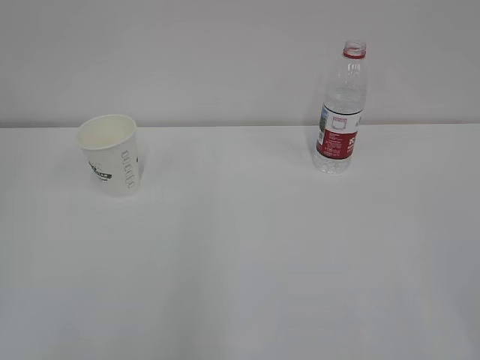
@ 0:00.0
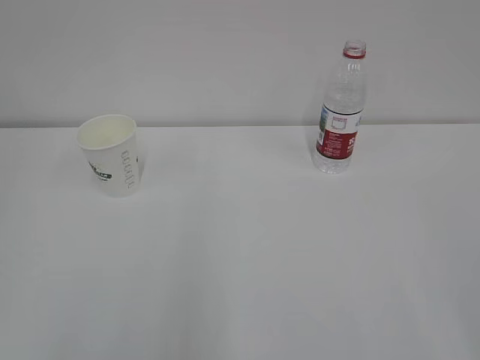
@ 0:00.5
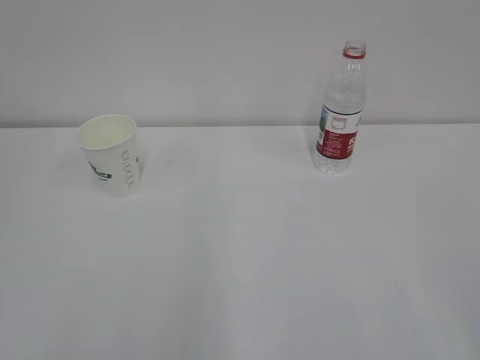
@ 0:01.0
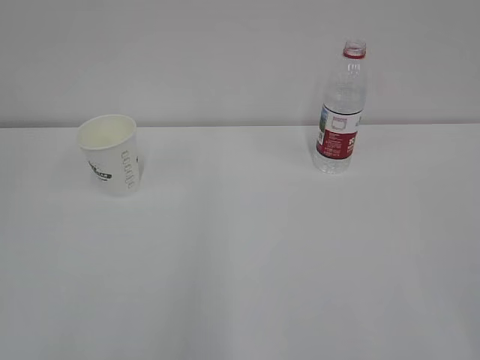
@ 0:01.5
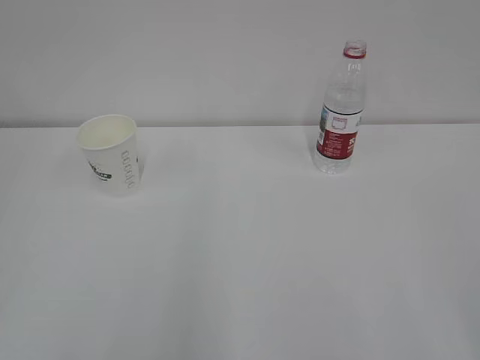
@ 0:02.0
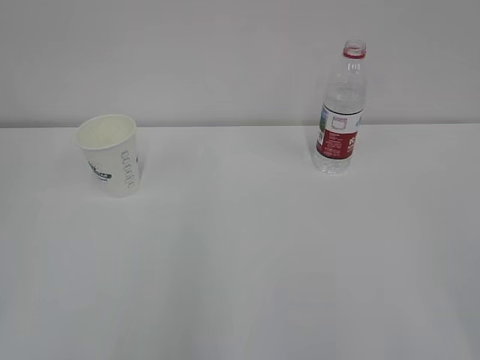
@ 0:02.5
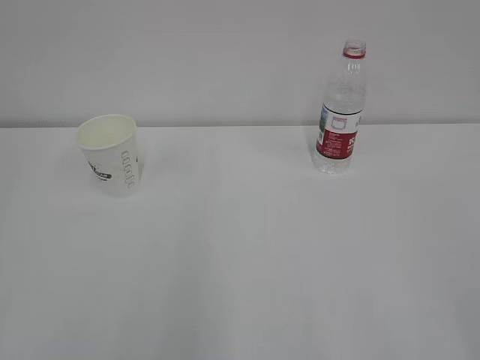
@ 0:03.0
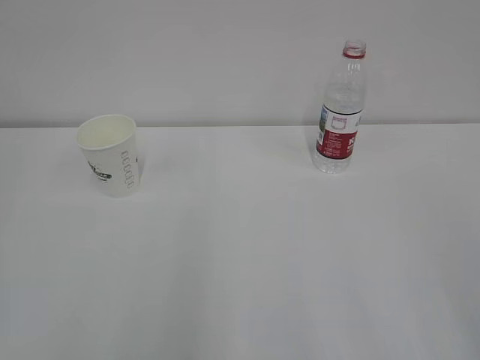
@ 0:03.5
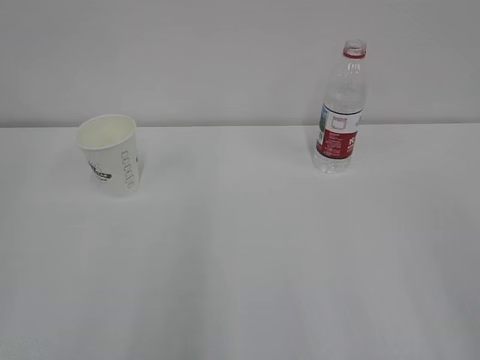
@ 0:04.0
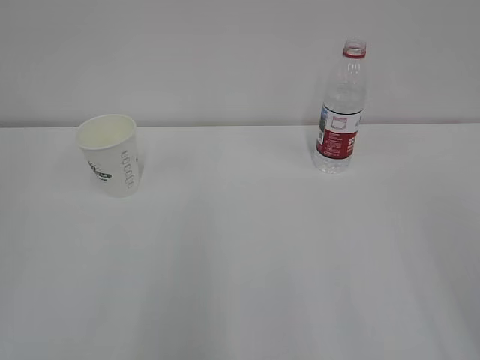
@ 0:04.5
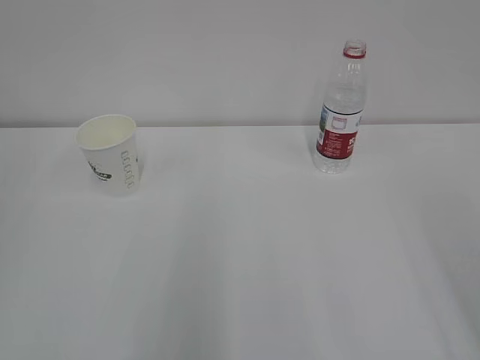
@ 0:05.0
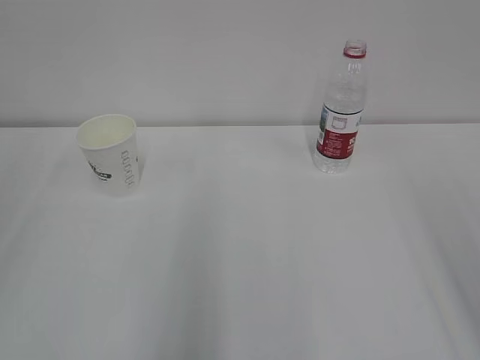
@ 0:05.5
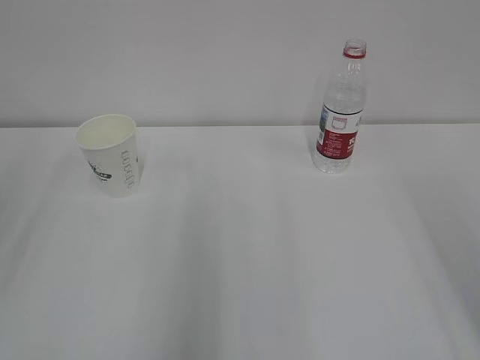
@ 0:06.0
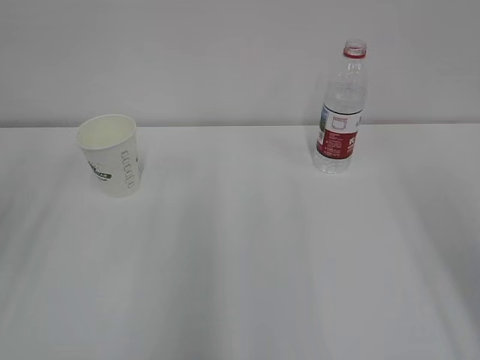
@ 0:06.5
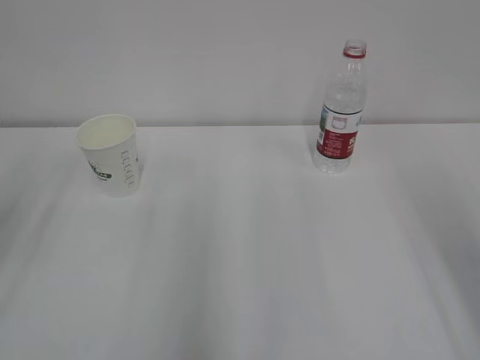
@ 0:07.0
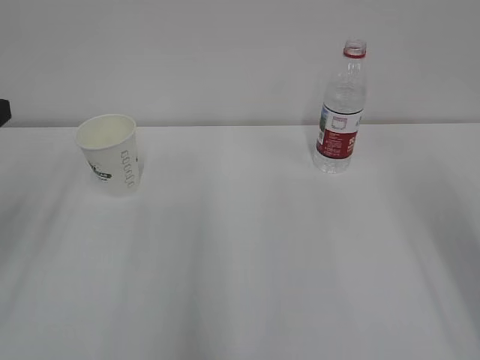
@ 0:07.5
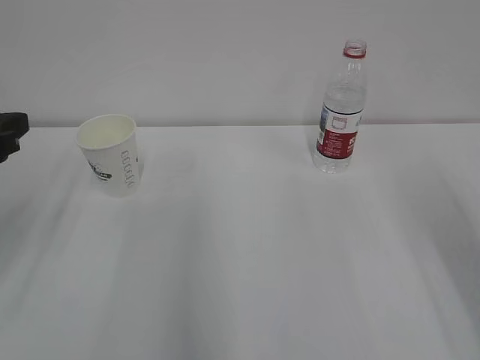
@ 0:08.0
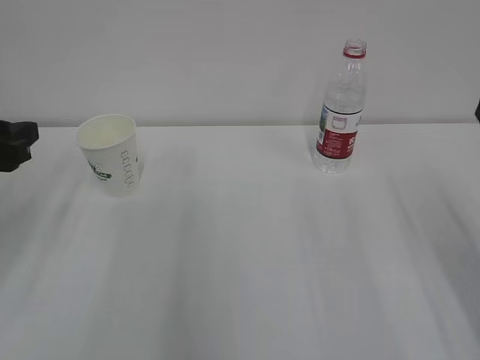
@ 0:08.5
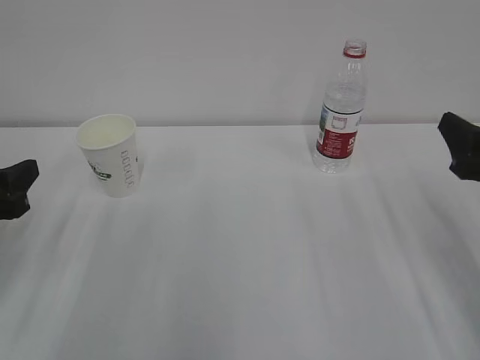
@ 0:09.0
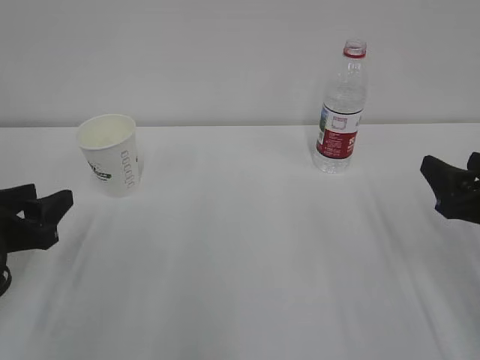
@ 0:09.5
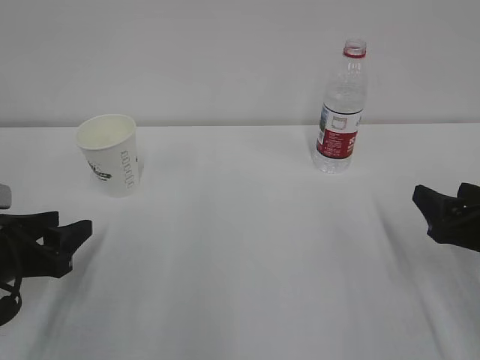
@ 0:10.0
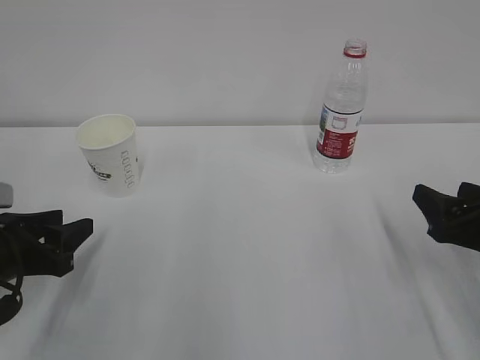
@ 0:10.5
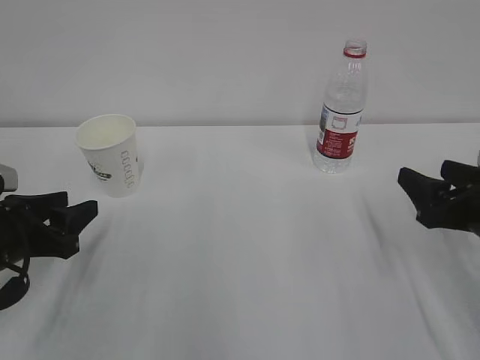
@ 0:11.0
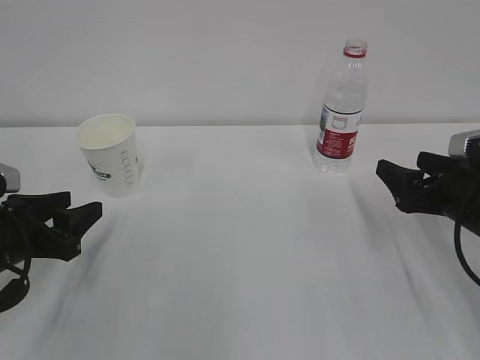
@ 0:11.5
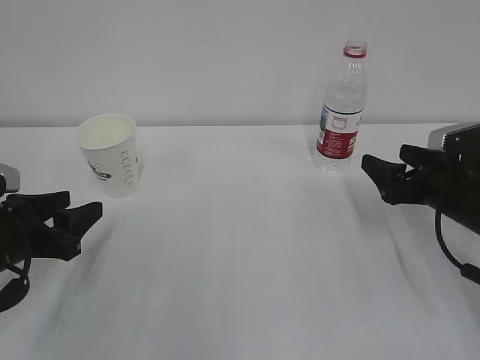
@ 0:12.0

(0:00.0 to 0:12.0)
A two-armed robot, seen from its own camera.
0:08.0 - 0:10.0: Both grippers move downward, approximately 15 cm.
0:10.0 - 0:12.0: The right gripper is displaced forward by approximately 10 cm.

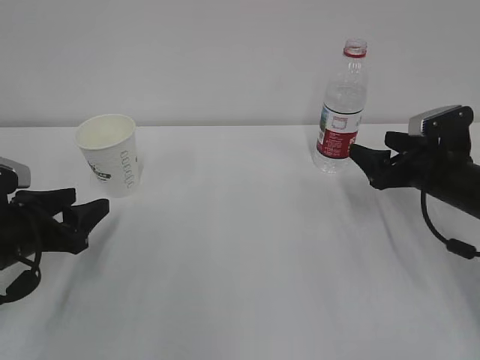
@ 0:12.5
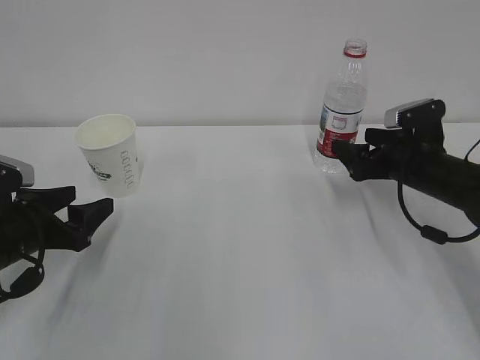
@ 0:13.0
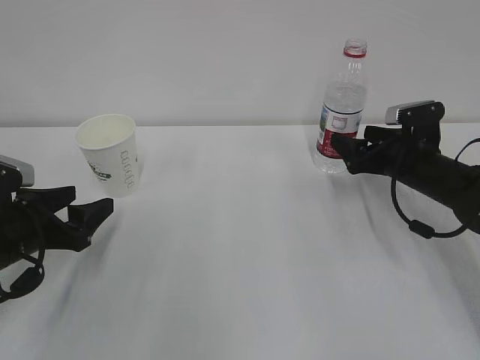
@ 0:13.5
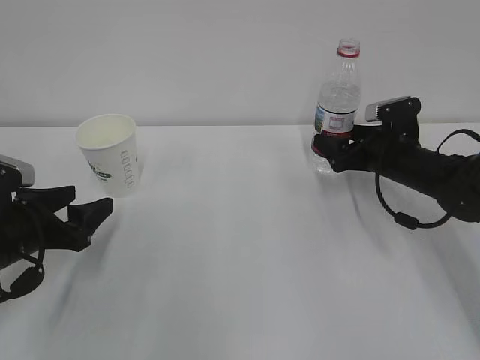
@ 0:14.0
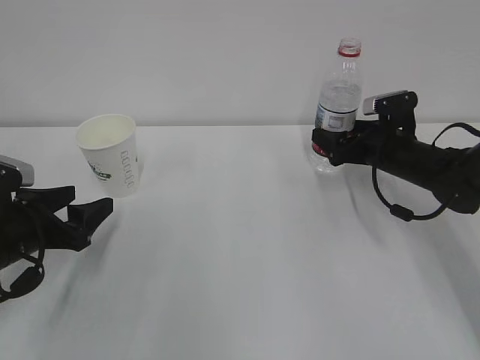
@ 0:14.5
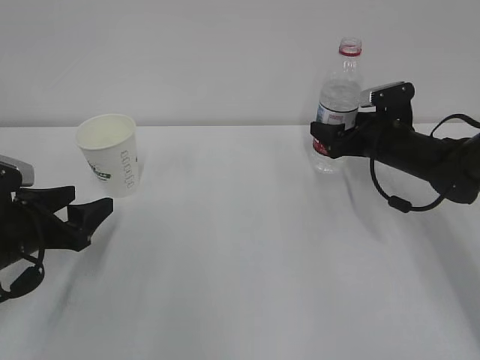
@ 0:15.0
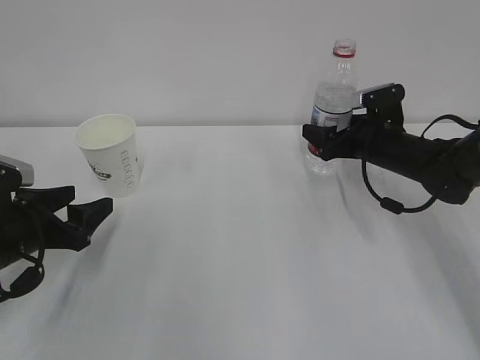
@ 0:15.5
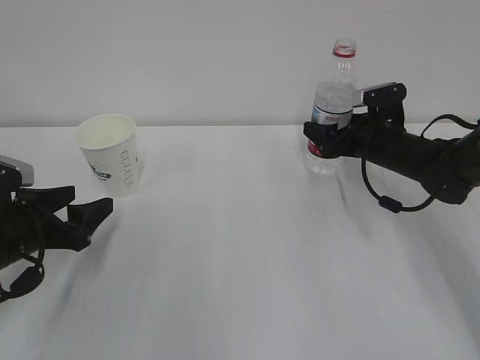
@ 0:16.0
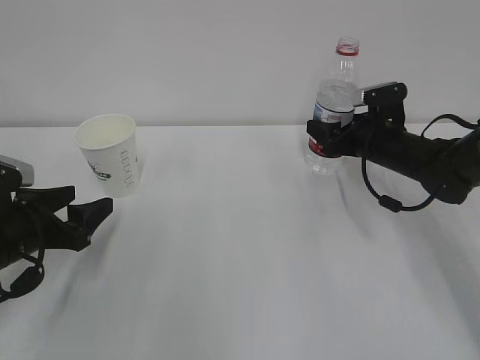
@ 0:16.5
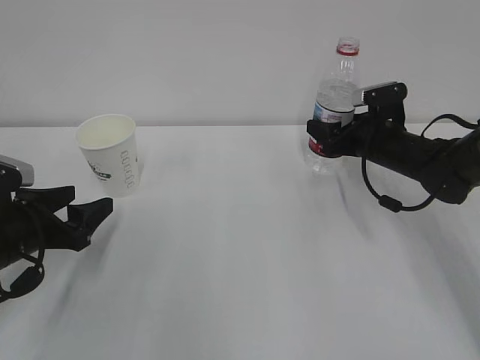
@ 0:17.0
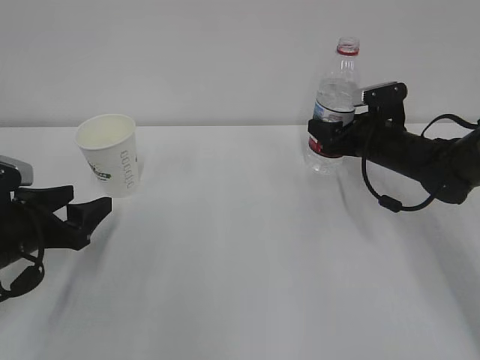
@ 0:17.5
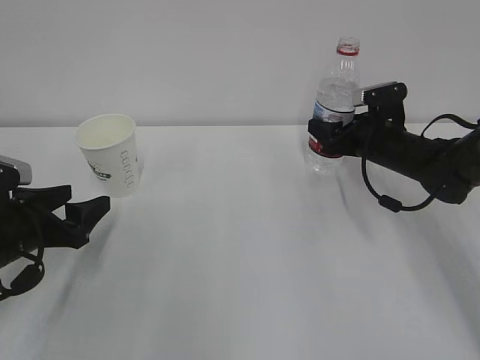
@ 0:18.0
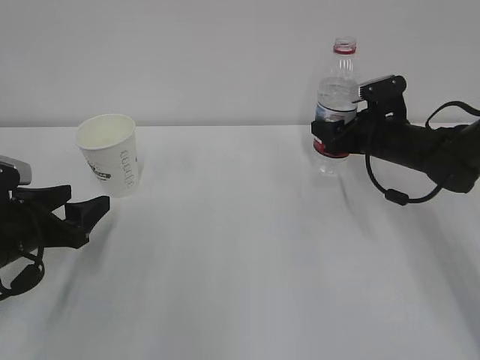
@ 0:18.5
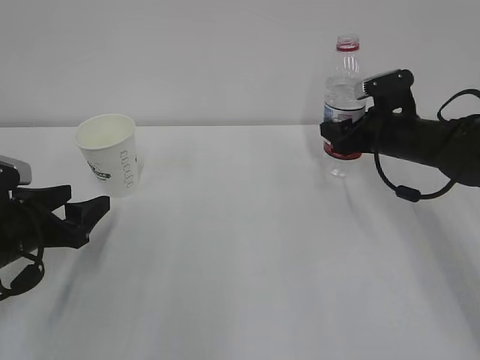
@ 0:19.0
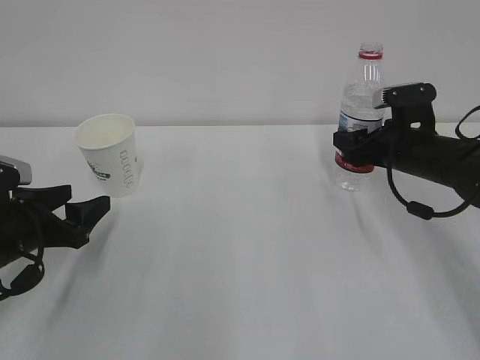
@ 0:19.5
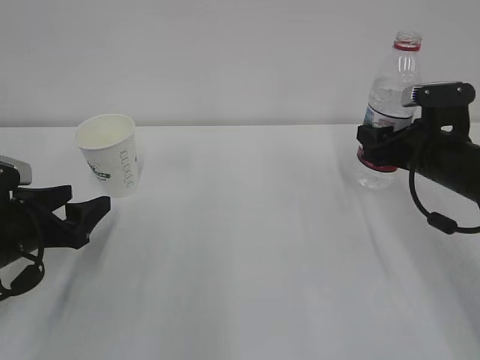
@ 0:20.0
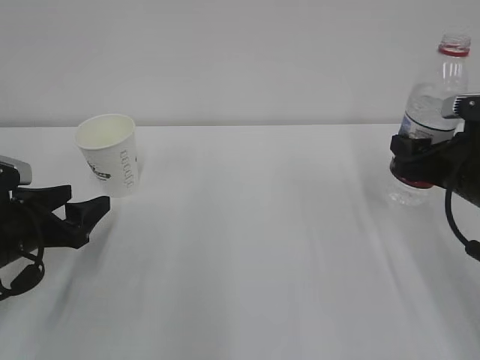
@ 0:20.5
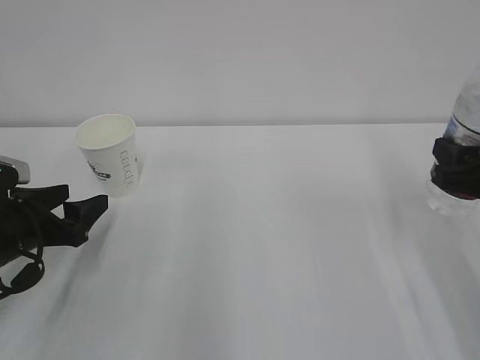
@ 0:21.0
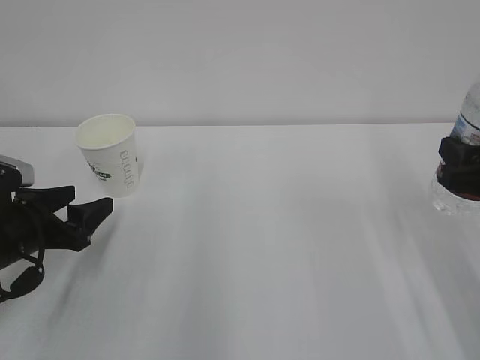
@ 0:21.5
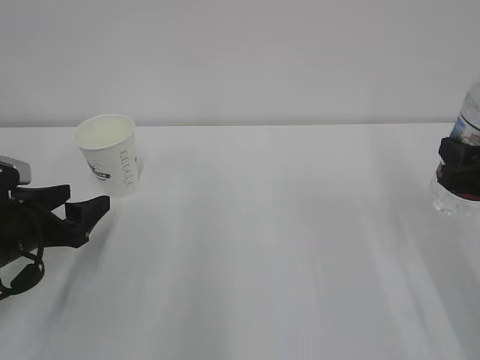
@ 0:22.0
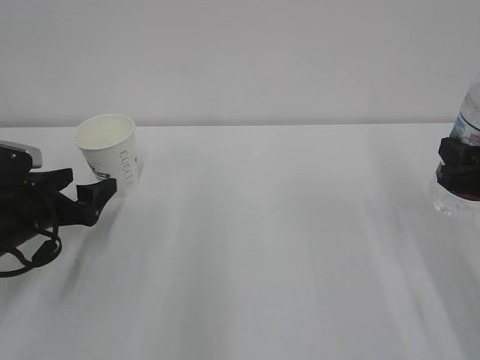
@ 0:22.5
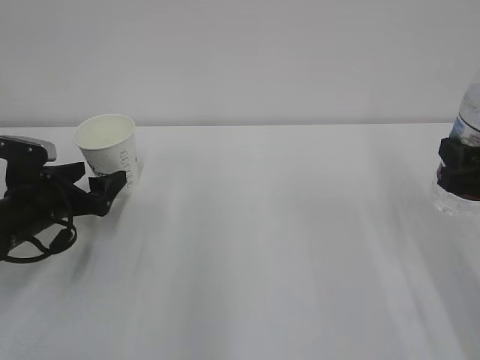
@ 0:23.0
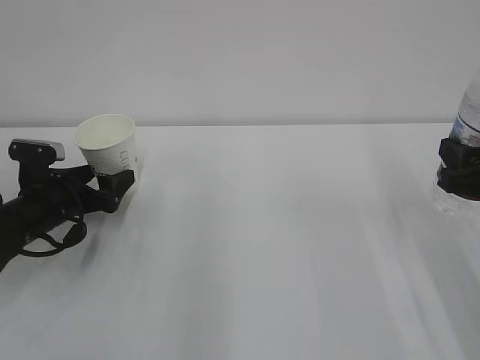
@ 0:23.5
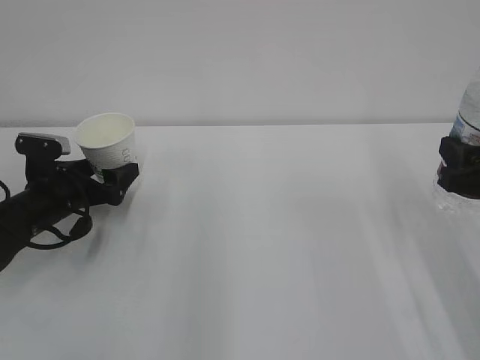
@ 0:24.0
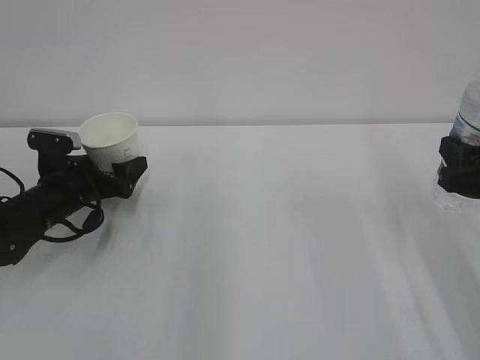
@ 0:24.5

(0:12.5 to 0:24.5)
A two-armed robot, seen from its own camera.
0:12.5 - 0:14.5: The right gripper travels forward by some 5 cm.
0:14.5 - 0:16.5: The right gripper closes.
0:16.5 - 0:18.5: The grippers make only small movements.
0:18.5 - 0:20.5: The right gripper moves backward, roughly 15 cm.
0:20.5 - 0:22.5: The right gripper goes approximately 5 cm backward. The left gripper opens up.
0:22.5 - 0:24.5: The left gripper moves forward, roughly 5 cm.

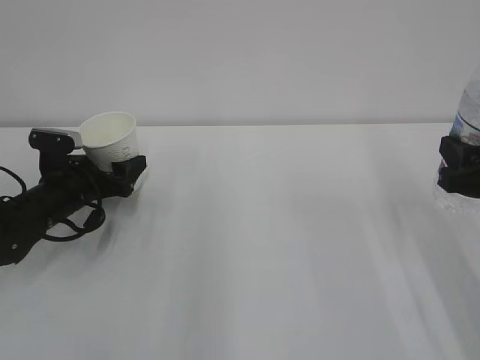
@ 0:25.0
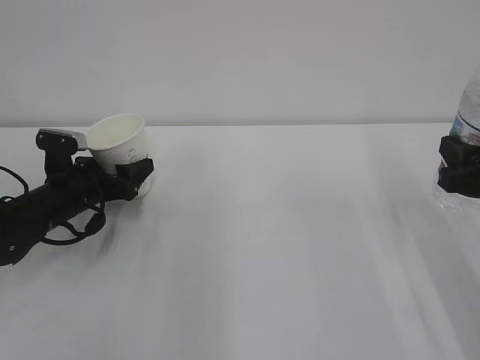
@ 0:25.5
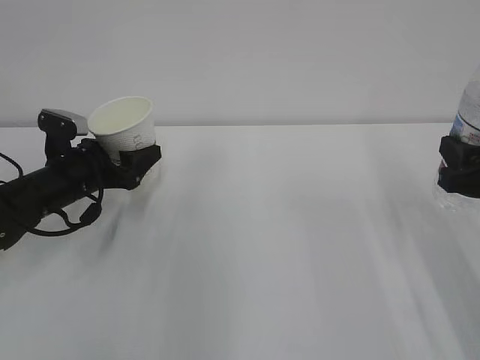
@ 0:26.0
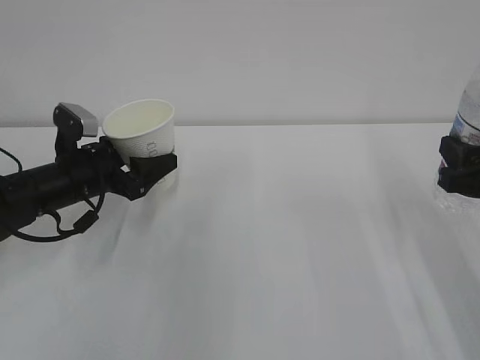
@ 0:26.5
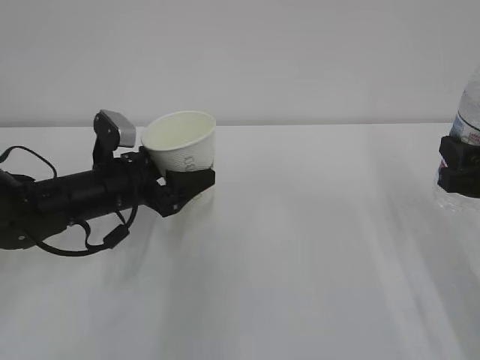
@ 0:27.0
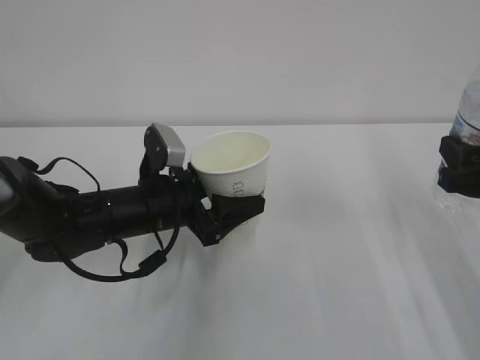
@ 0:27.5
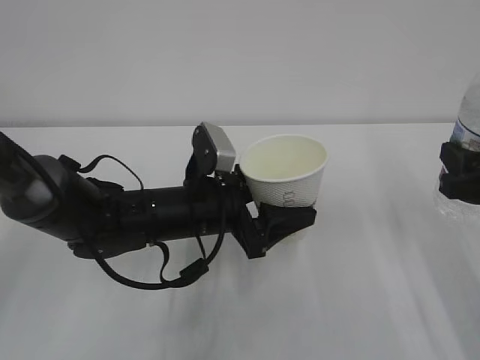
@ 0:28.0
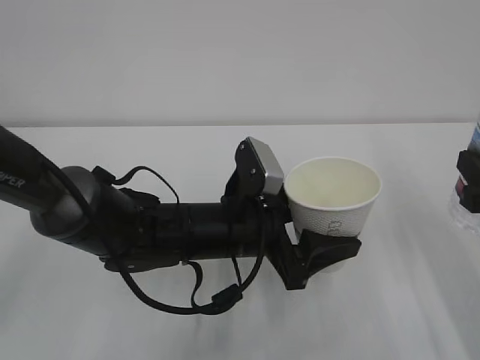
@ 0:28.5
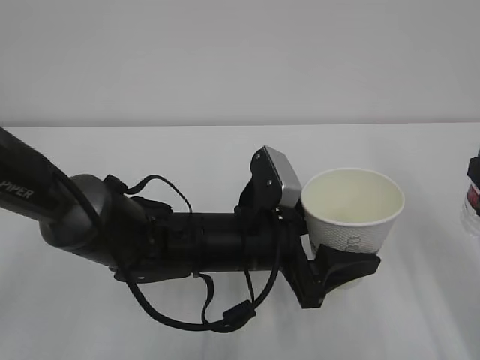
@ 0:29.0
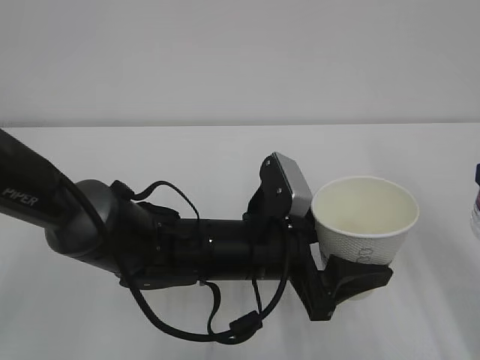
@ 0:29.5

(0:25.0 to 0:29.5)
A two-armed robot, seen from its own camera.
0:25.0 - 0:27.0: The left gripper shifts some 10 cm to the right.
0:27.0 - 0:29.5: The right gripper is displaced backward by about 5 cm. Meanwhile the left gripper moves to the right and backward, some 20 cm.
